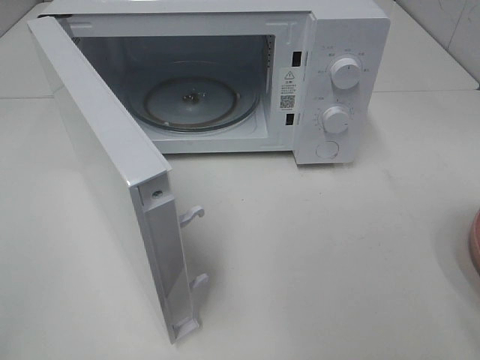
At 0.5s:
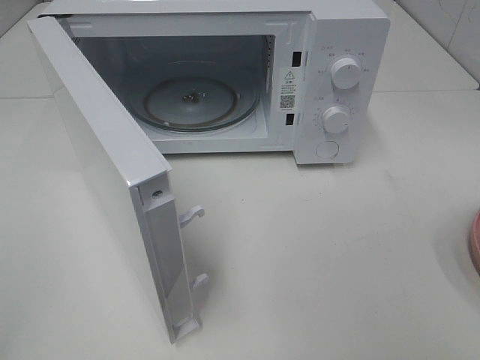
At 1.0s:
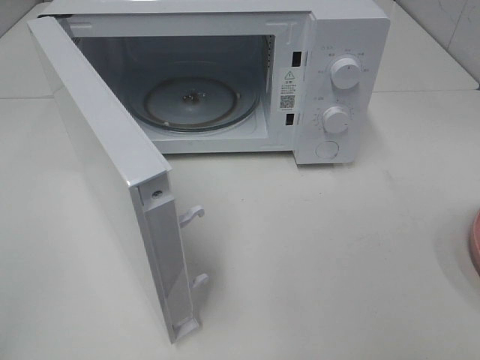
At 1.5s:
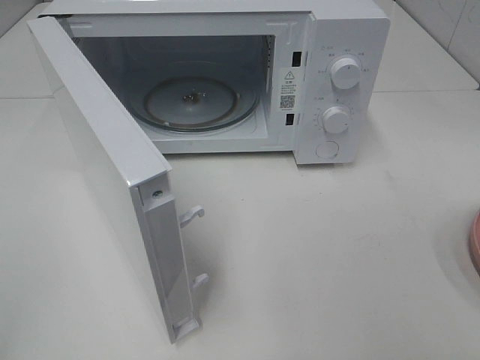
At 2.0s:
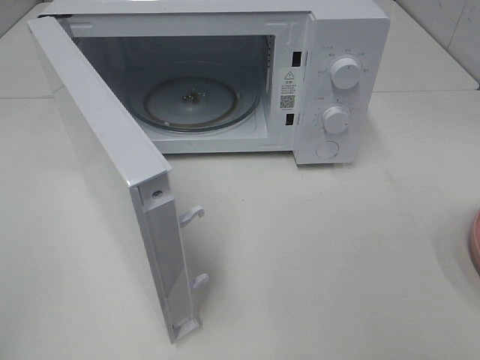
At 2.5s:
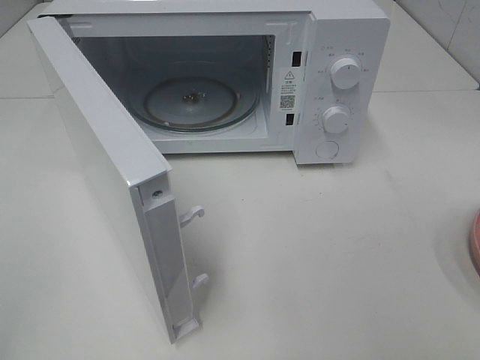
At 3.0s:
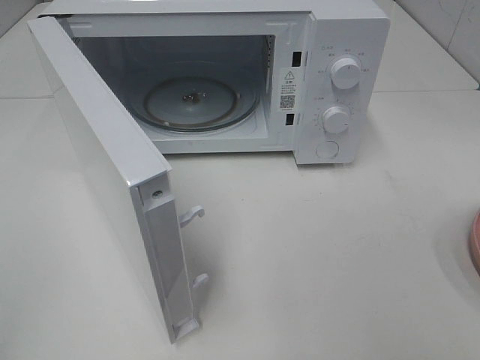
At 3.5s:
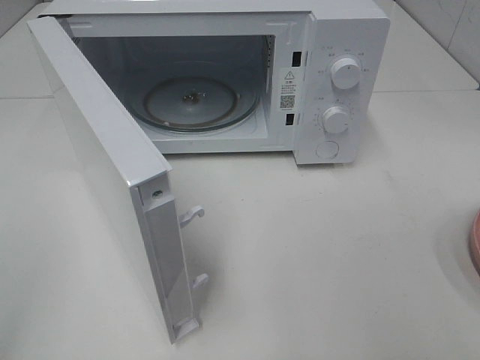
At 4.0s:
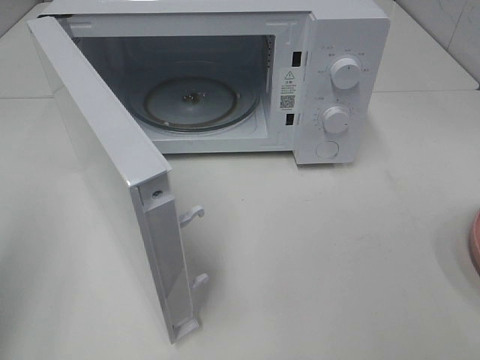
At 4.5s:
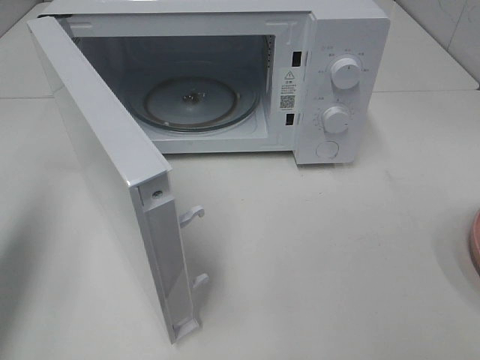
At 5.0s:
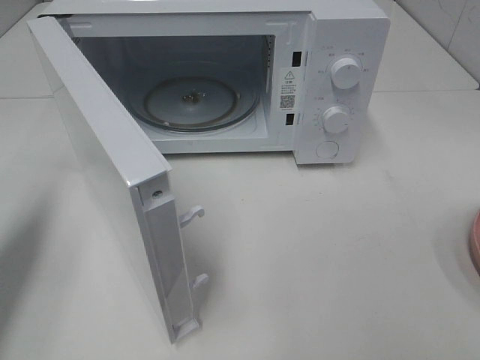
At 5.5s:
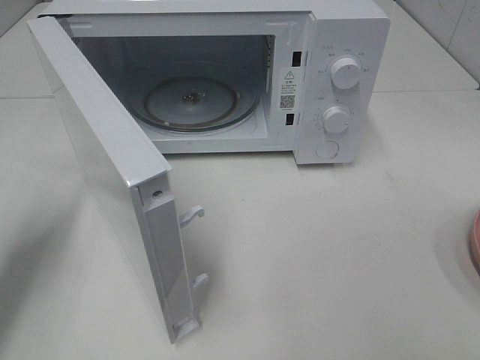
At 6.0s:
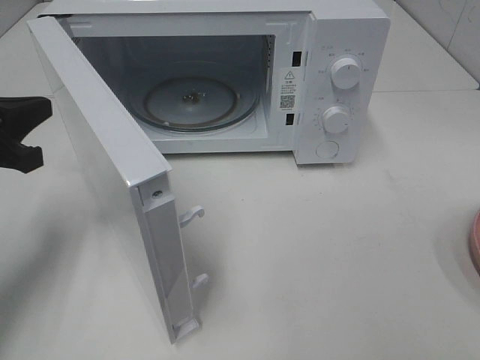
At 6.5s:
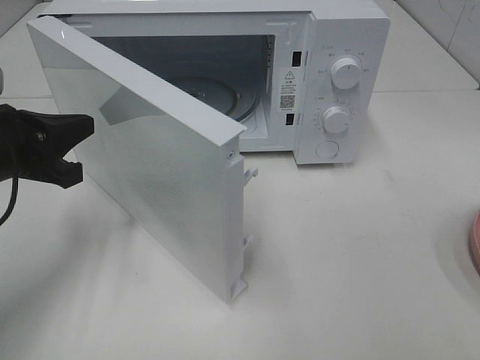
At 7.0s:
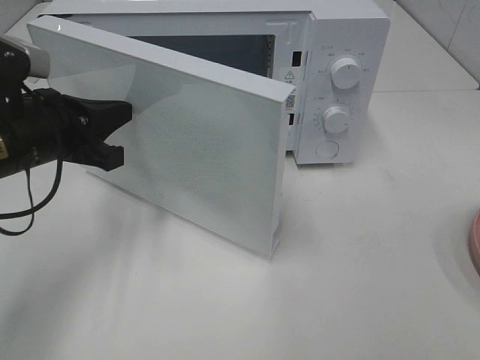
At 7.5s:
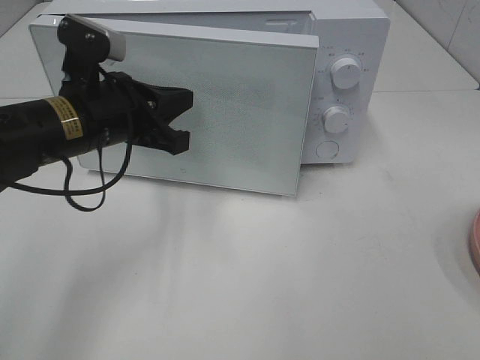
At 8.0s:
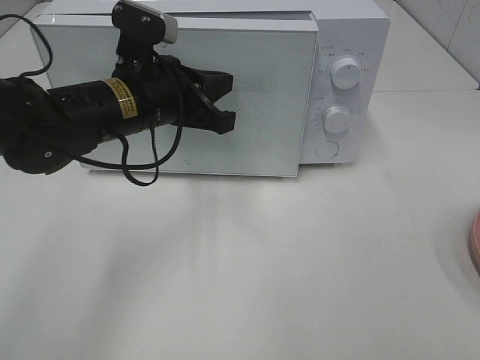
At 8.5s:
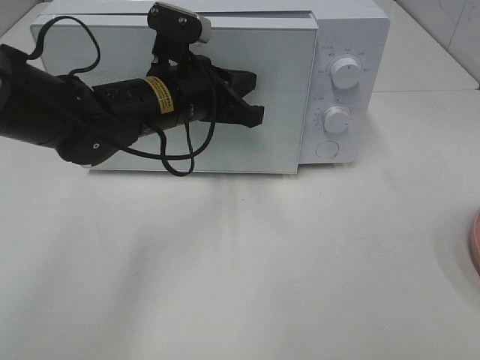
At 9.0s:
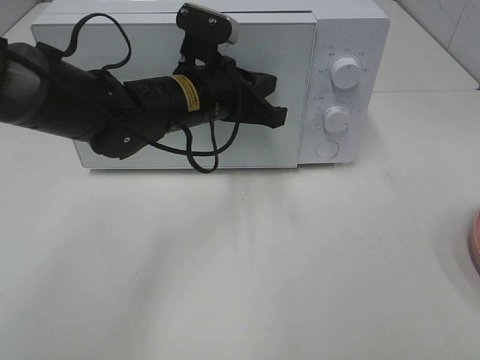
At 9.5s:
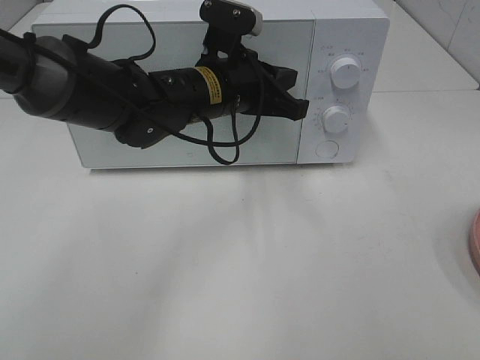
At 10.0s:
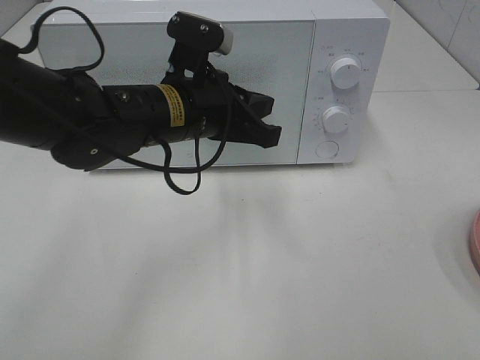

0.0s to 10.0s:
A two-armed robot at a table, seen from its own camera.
Task of the whole recording: Heat the burger.
Step, 0.0s to 9.0s: Left hand: close the microwave door.
4.0s to 6.0s: The left gripper shifts roughly 20 cm forward and downward.
6.0s to 8.0s: The left gripper travels to the right by approximately 20 cm.

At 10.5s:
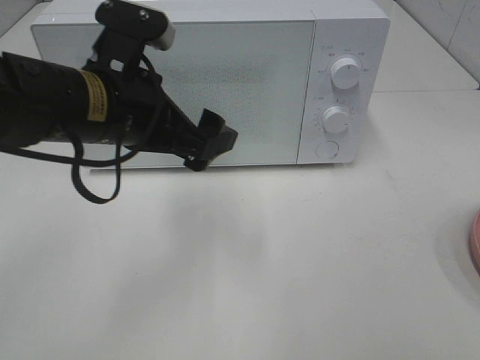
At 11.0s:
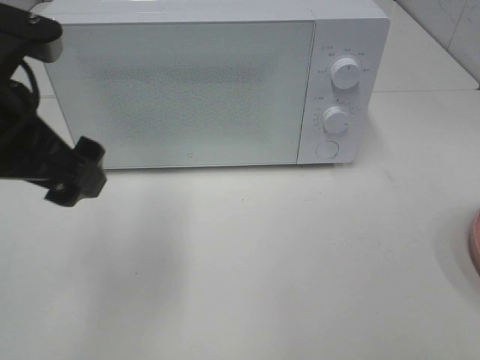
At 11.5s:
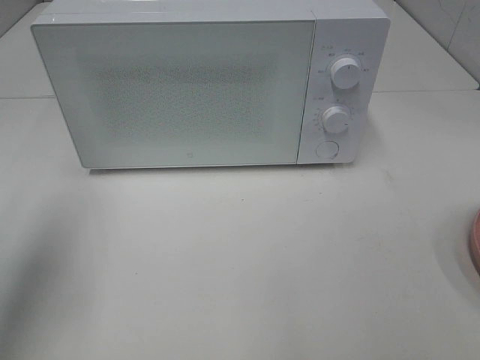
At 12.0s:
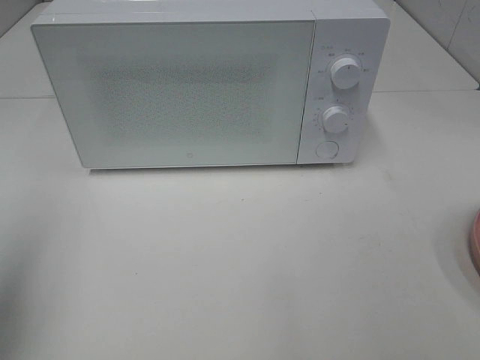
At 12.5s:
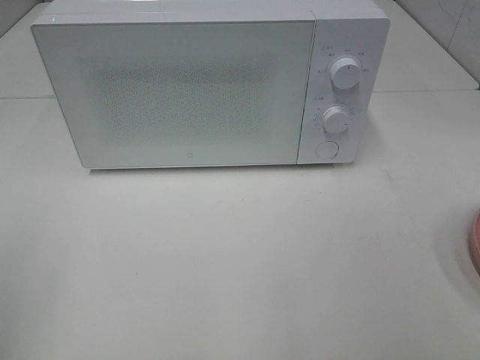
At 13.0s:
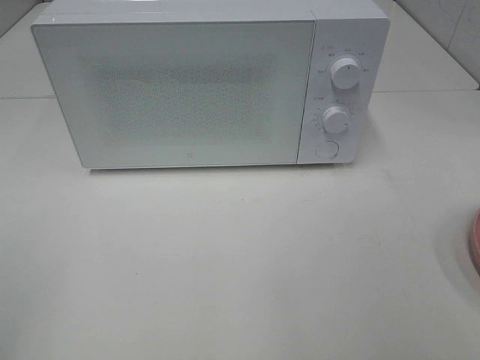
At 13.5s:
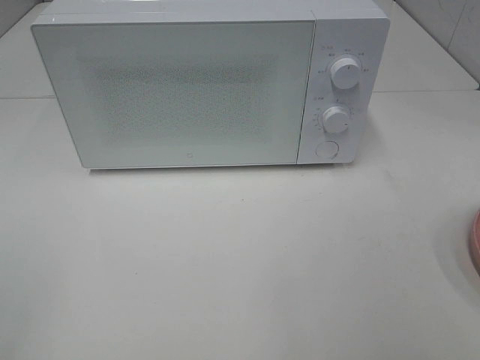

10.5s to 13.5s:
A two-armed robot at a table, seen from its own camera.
Task of the whole recording: Heat the burger.
10.5s to 12.0s: The left gripper heads to the left and backward, covering some 25 cm.
12.0s to 13.5s: The left gripper travels backward by approximately 15 cm.

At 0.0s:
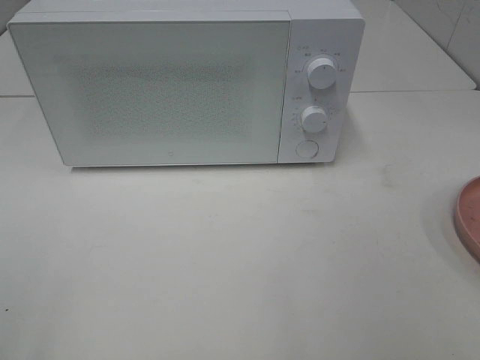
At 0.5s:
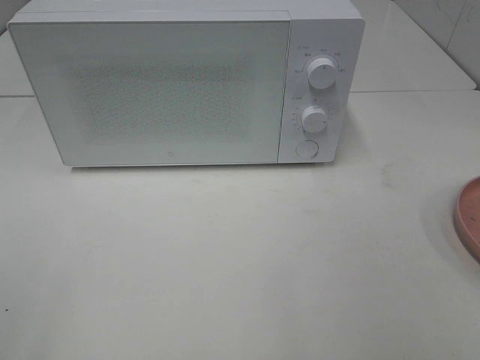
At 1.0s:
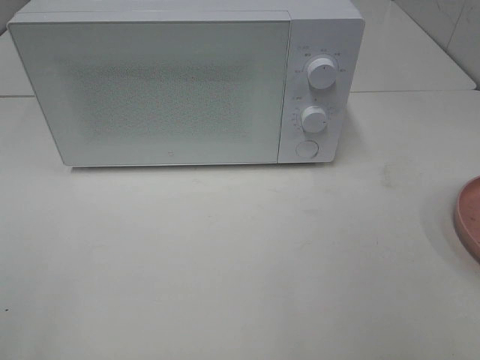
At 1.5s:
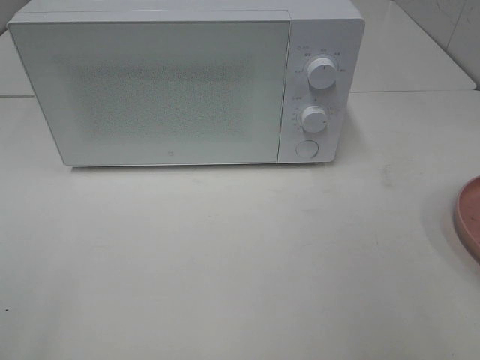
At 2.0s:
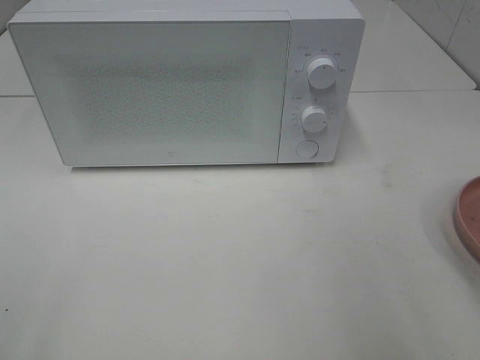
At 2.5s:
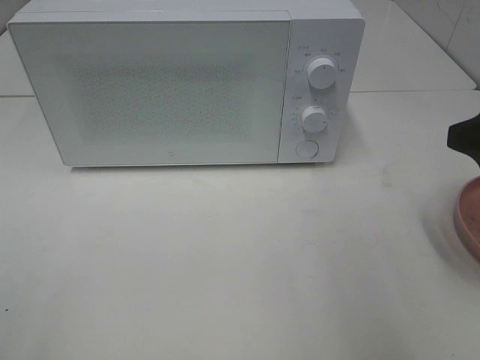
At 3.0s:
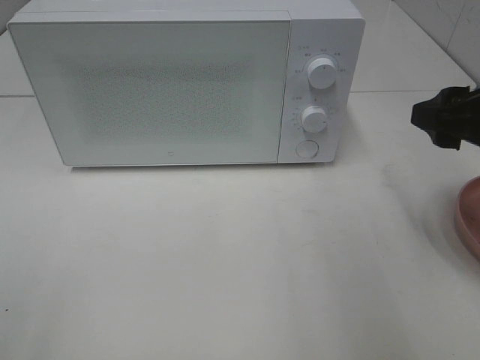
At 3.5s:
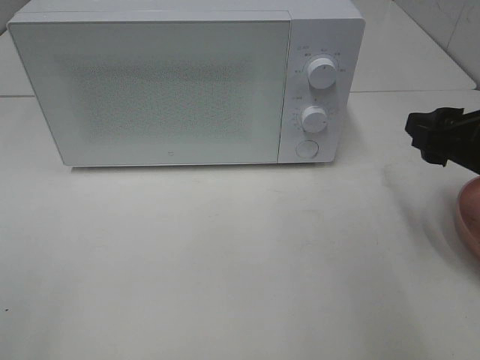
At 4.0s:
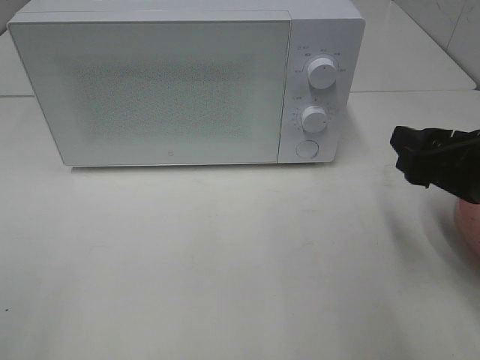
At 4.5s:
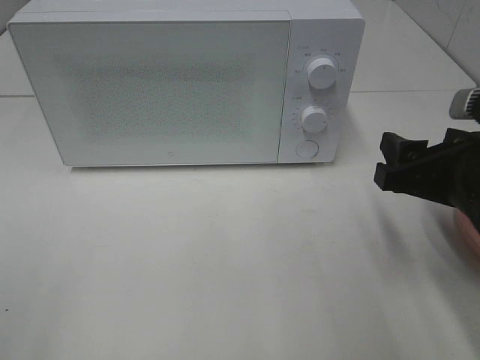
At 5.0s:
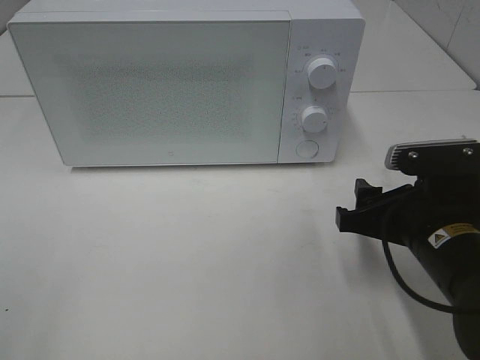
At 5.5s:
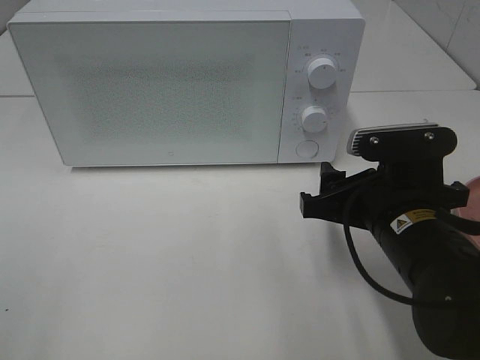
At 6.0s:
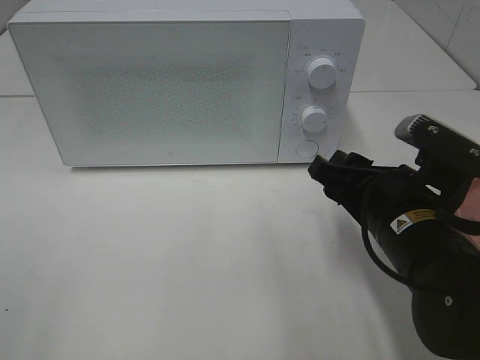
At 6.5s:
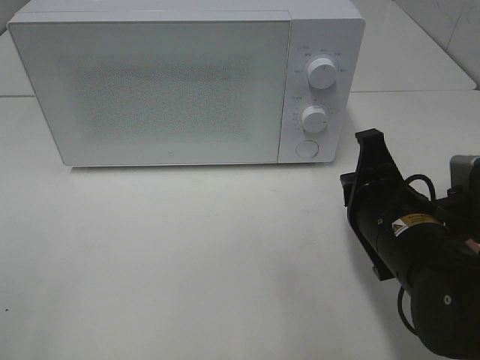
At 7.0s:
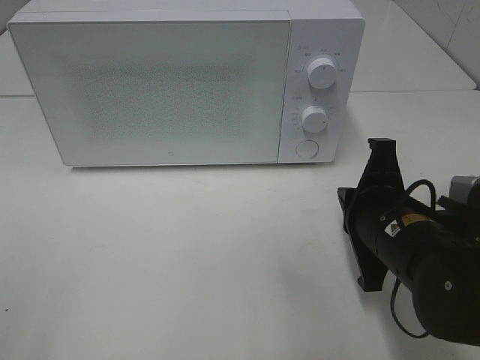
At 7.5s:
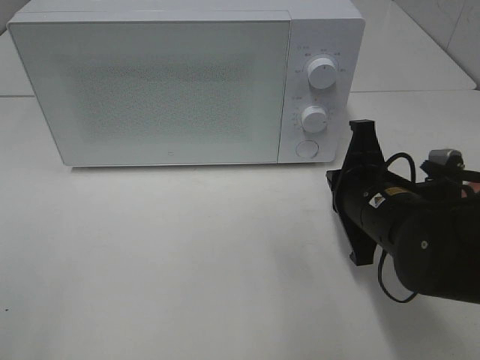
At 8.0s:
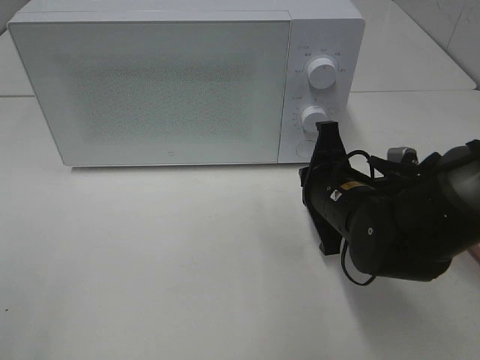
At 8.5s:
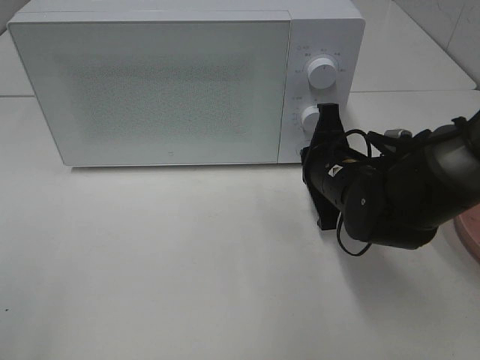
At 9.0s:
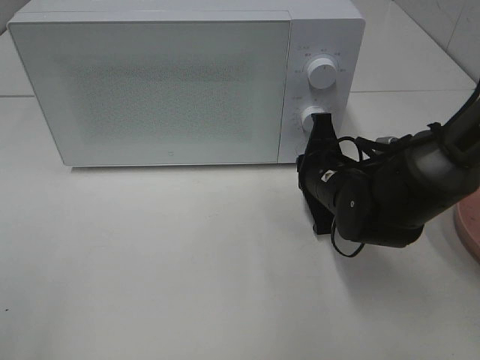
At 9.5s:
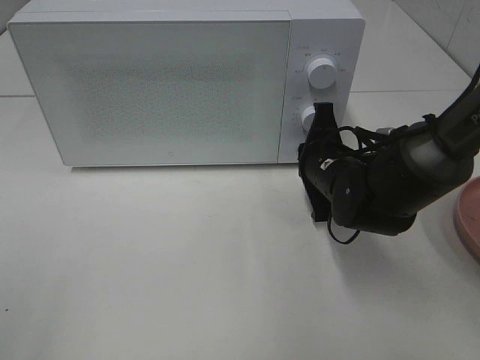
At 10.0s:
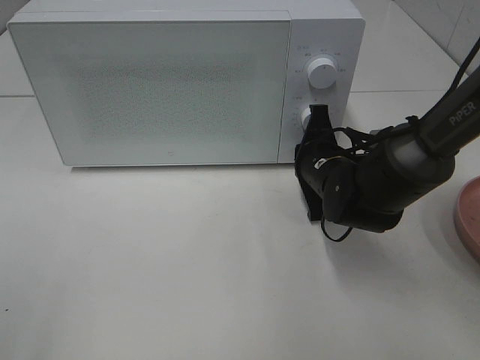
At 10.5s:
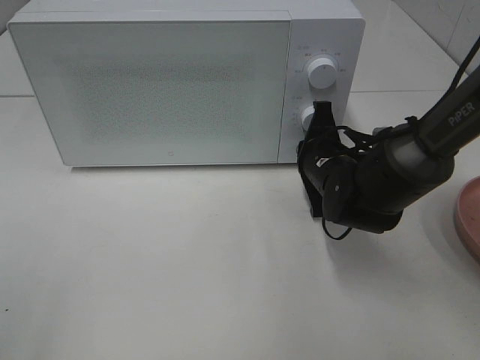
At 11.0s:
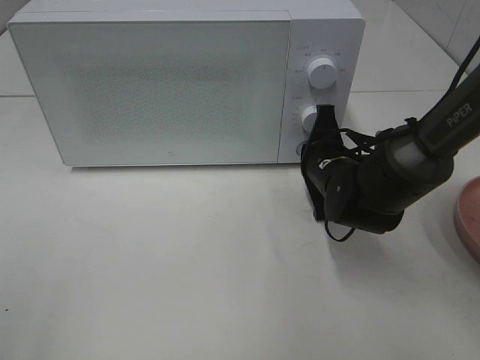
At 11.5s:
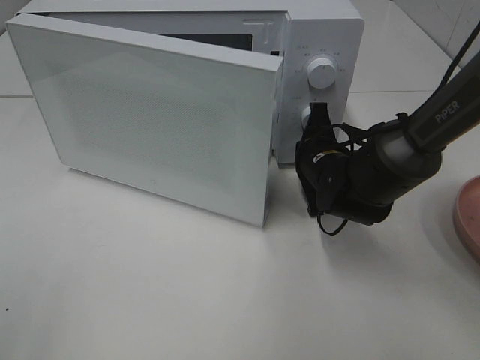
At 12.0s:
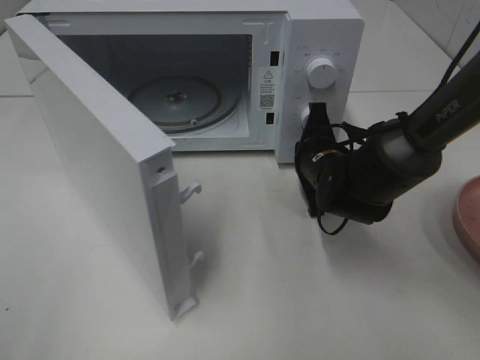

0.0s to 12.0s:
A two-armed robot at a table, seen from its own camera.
Task of the whole recording: Heat the burger.
2.0s to 4.0s: The right gripper moves downward and forward, approximately 10 cm.
4.0s to 6.0s: The right gripper is displaced to the left and downward by some 10 cm.
6.0s to 8.0s: The right gripper is displaced forward by approximately 5 cm, and closes its fingers.
8.0s to 10.0s: The right gripper heads forward, covering some 5 cm.

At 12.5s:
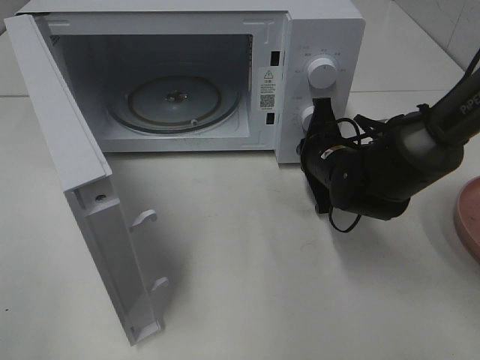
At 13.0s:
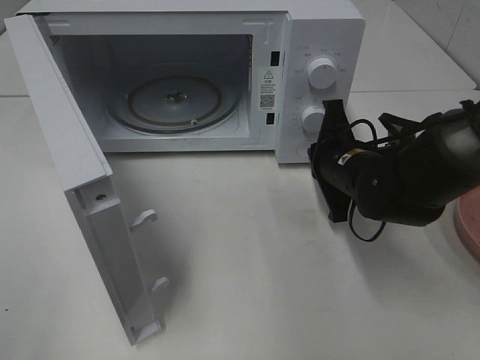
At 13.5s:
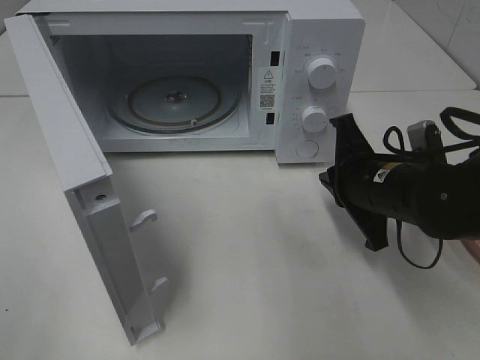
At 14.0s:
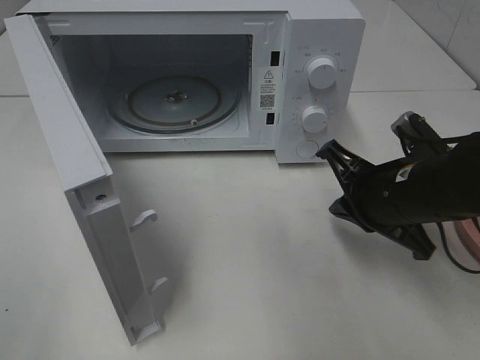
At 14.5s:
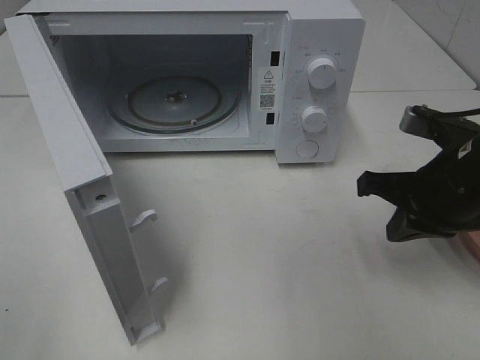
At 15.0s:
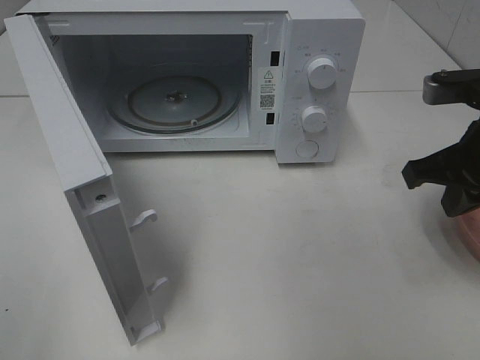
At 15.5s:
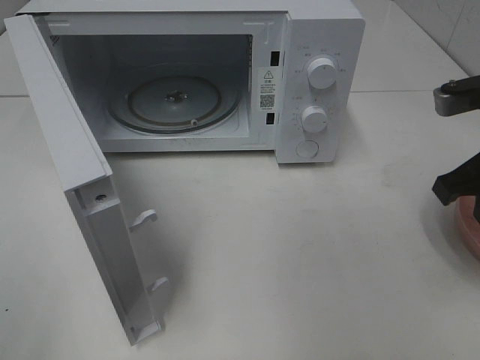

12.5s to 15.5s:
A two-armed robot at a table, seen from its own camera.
Task of the whole recording: Heat the burger.
12.5s to 14.0s: The right gripper shifts about 10 cm backward and upward.
14.0s to 15.5s: The right gripper is displaced upward and to the right by approximately 10 cm.
